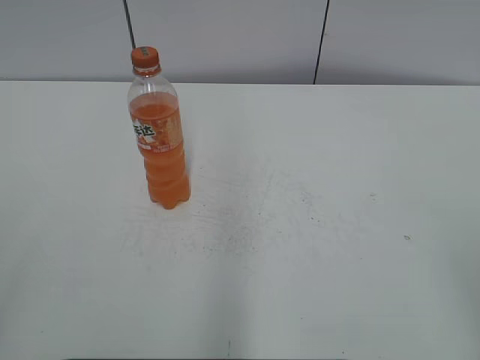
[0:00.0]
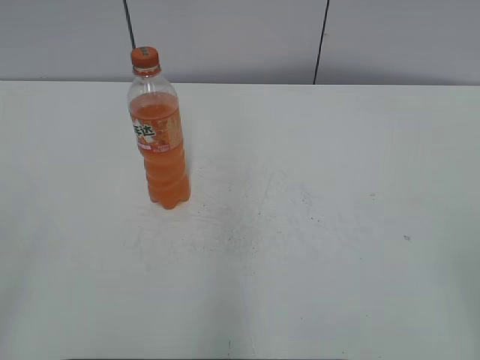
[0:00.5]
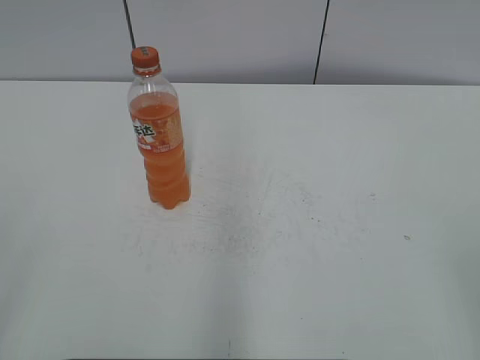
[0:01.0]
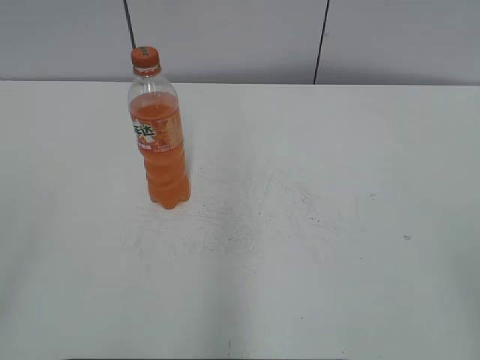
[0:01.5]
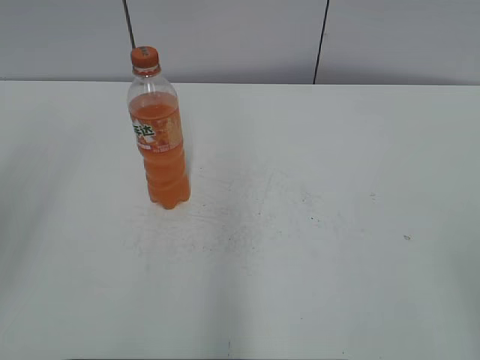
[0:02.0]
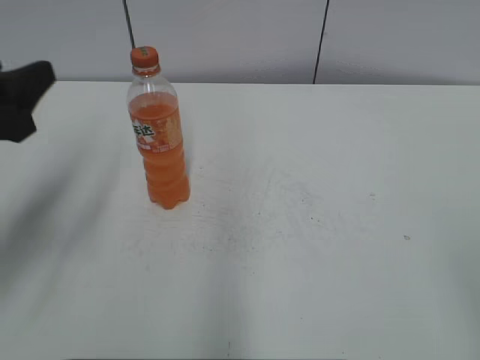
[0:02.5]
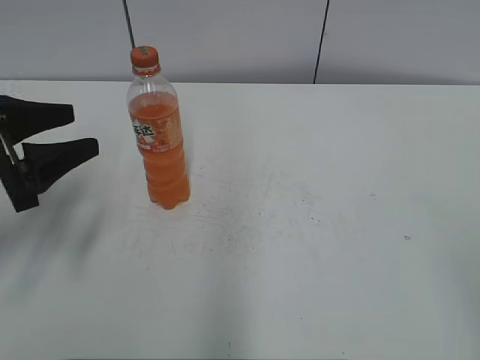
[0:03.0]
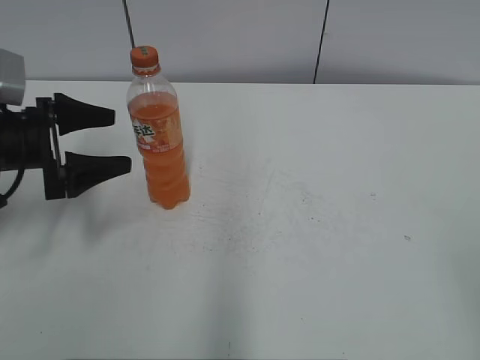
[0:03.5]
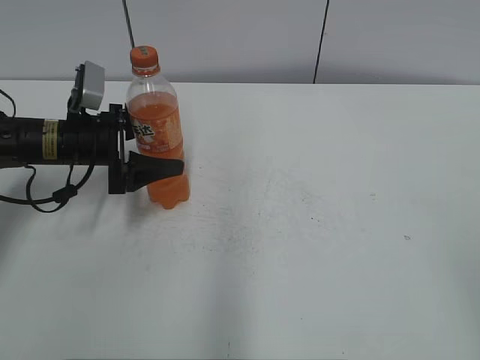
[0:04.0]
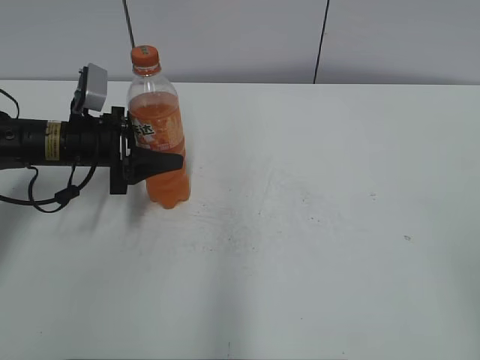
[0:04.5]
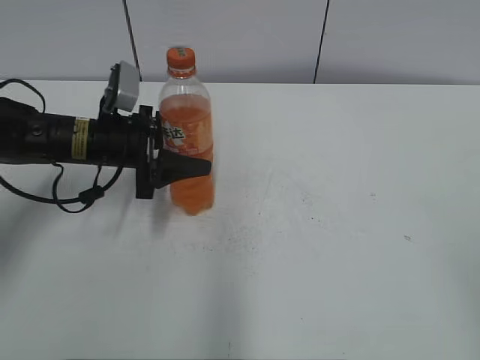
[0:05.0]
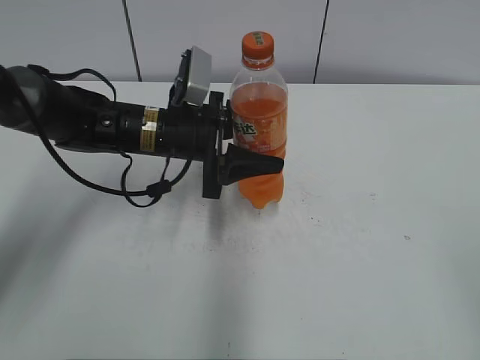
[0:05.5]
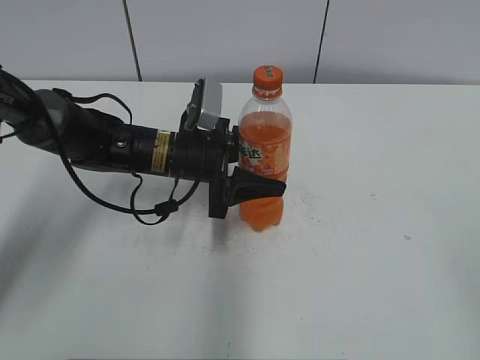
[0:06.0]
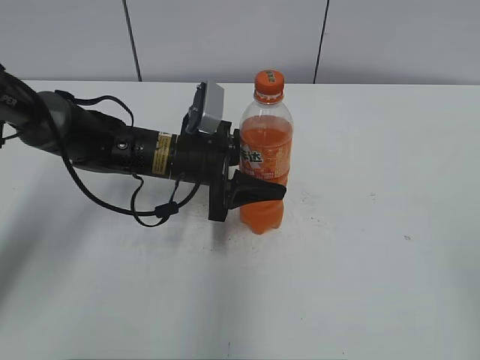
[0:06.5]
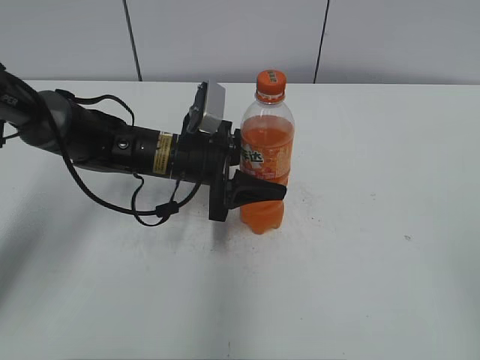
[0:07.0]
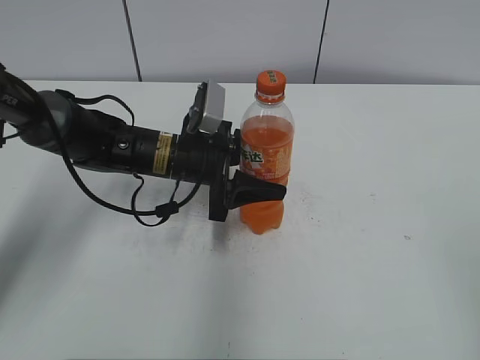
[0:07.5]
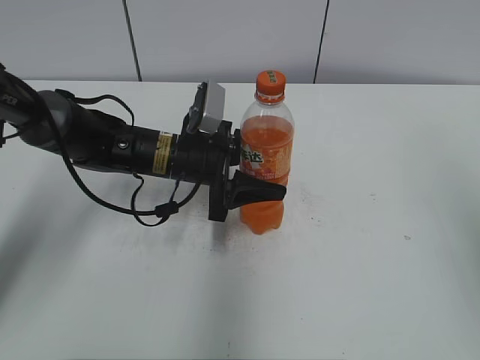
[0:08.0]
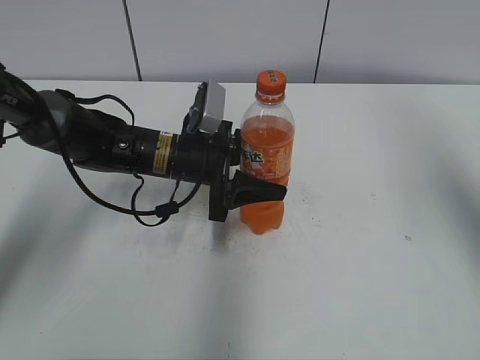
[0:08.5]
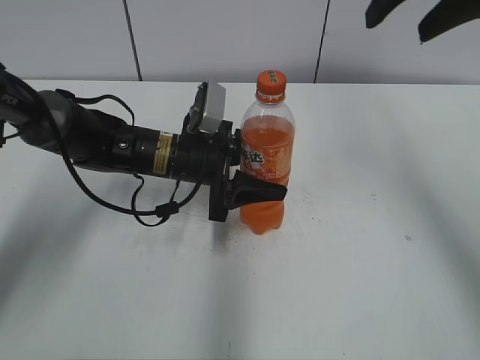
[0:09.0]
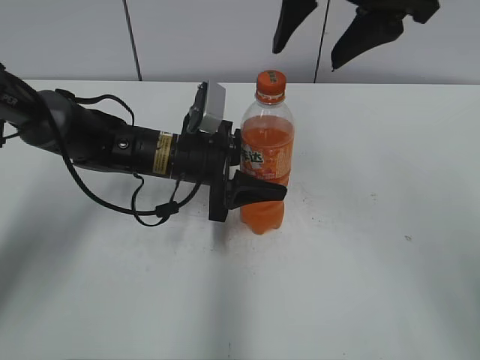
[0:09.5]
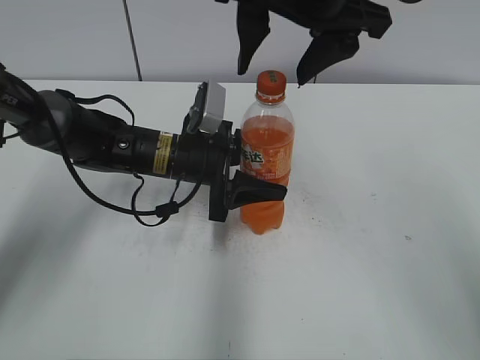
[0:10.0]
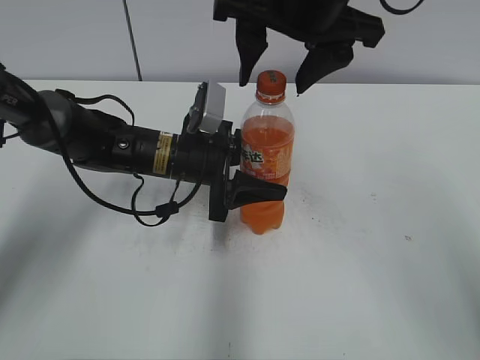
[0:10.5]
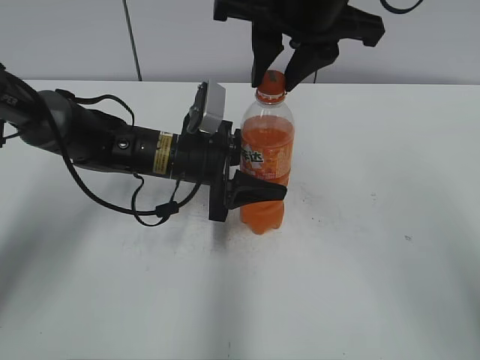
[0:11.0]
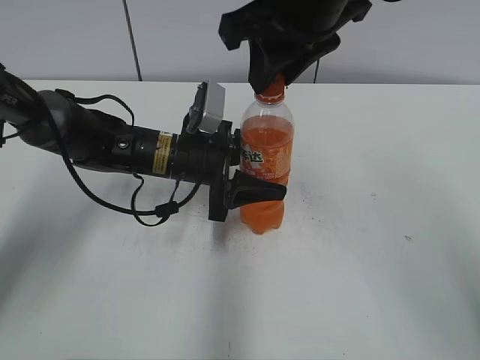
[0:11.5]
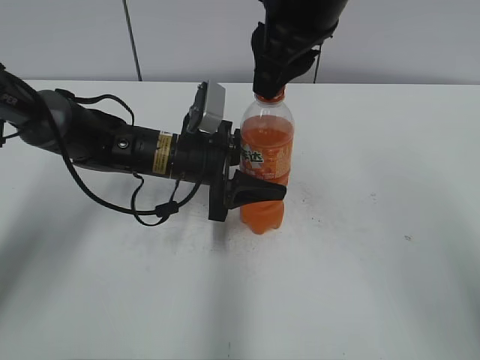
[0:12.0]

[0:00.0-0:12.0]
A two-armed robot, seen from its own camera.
Step, 0:00.0 to 0:04.5: Grab the Mirinda with the left hand.
Step, 0:05.0 to 0:06.5: Move the Mirinda from left to right.
0:02.0 to 0:04.0: The left gripper shifts roughly 35 cm forward and downward, and opens up.
0:04.0 to 0:06.0: The left gripper is displaced to the right by about 15 cm, and closes up.
0:06.0 to 0:08.0: The right gripper moves upward and forward, roughly 10 cm.
0:08.0 to 0:10.0: The right gripper heads to the left and forward, covering roughly 30 cm.
0:10.0 to 0:12.0: The right gripper closes.

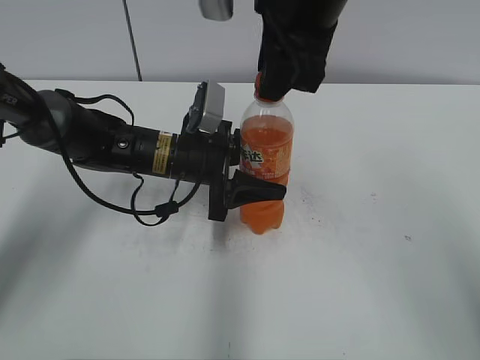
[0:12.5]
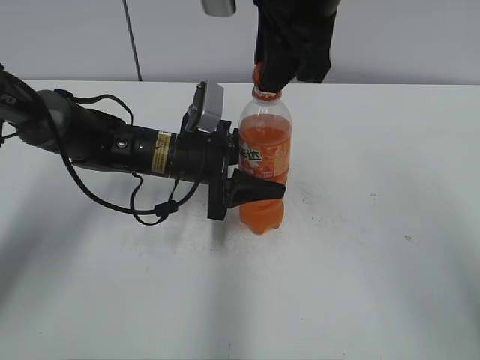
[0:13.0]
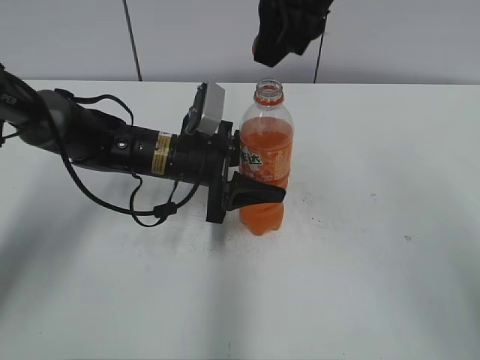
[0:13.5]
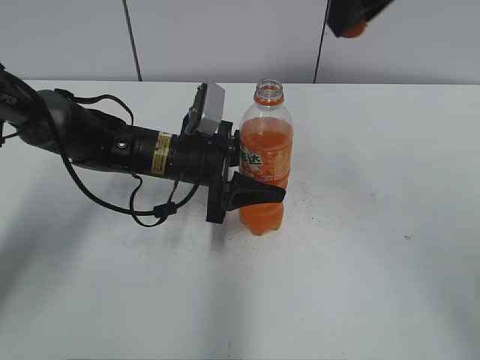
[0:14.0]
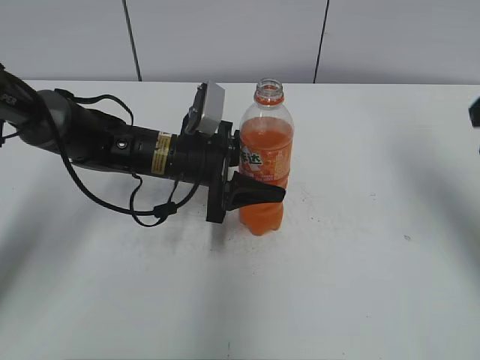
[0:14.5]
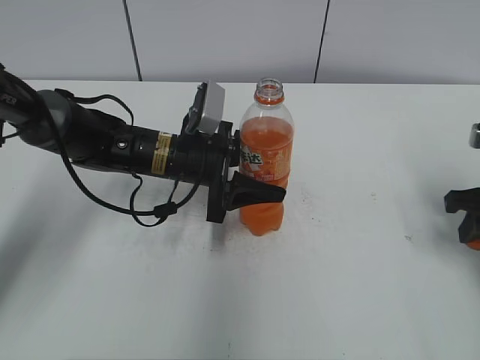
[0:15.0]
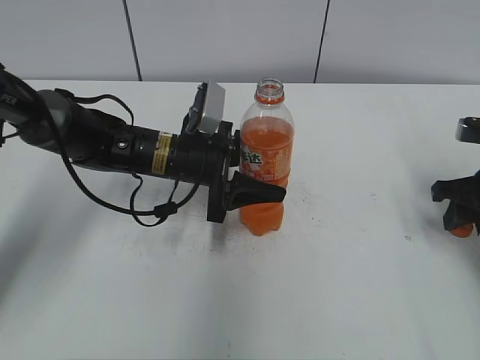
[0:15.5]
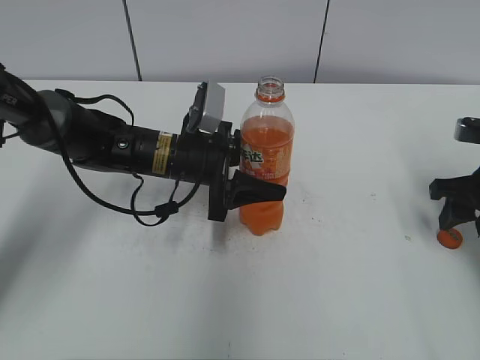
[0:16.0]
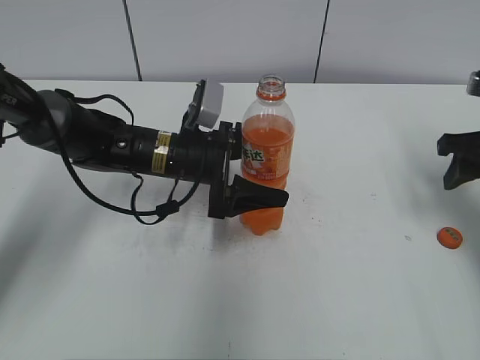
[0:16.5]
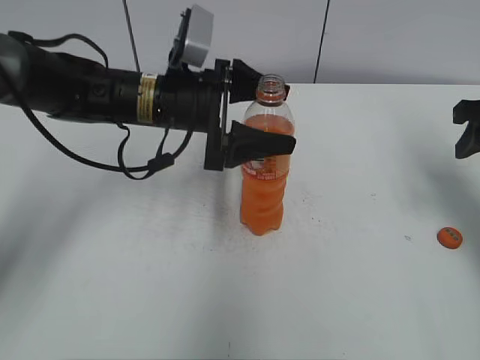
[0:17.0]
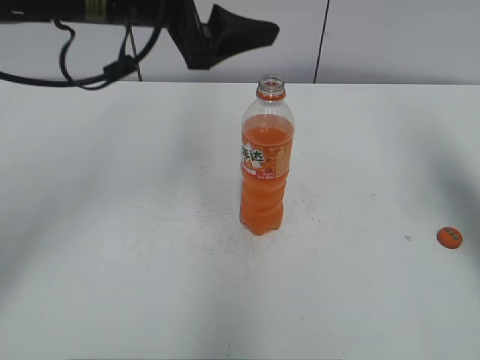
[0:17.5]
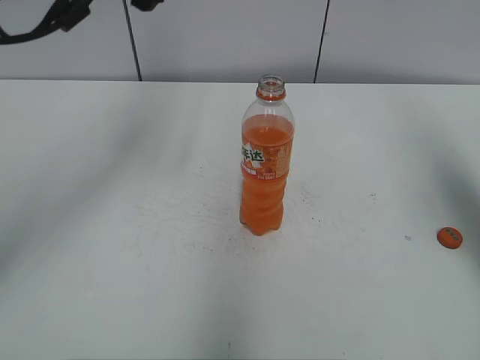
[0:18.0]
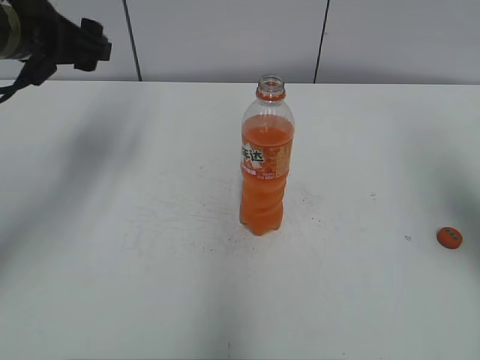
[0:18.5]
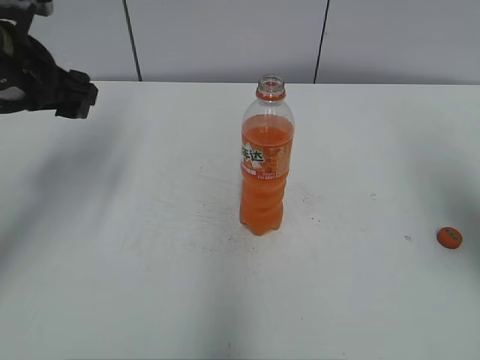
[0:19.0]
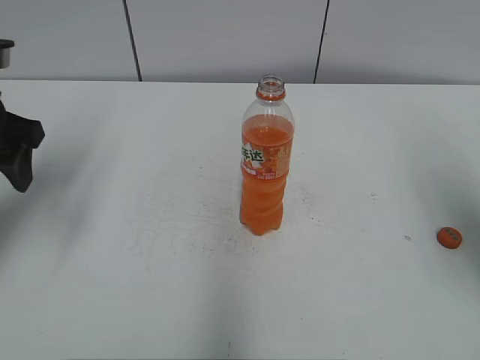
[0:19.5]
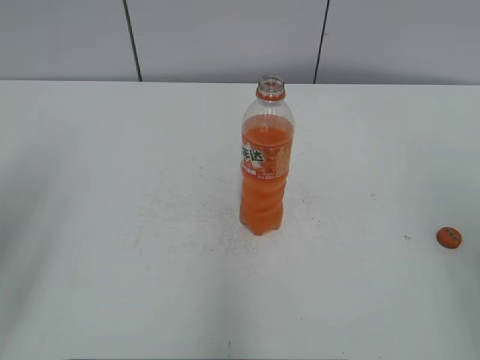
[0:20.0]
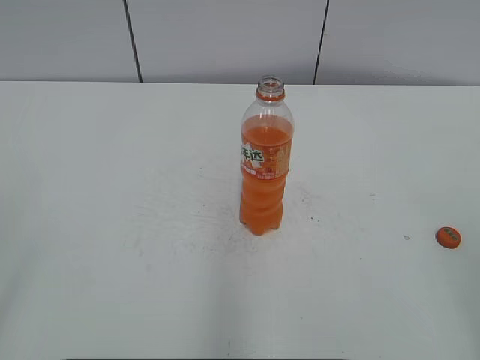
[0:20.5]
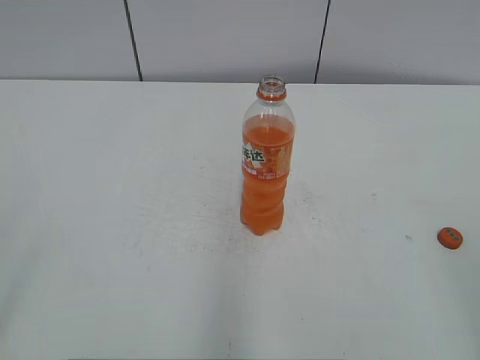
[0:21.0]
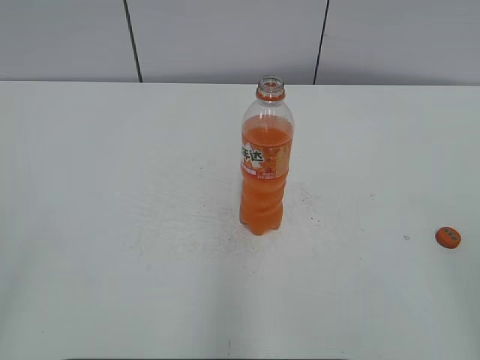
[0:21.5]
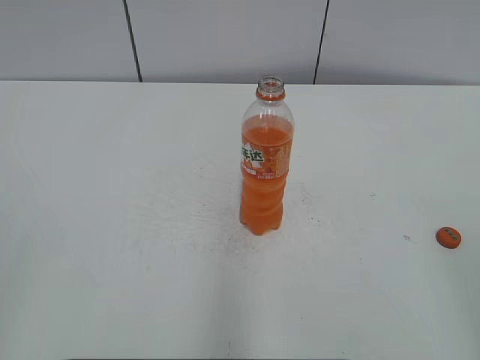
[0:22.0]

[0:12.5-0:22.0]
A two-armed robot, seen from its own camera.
Step, 0:13.0 to 0:15.5: Place the bottle cap on the right.
0:12.5 to 0:14.5: The right gripper travels to the right by roughly 20 cm.
0:14.5 to 0:16.5: The left gripper opens its fingers; the right gripper heads downward, covering roughly 10 cm, and opens.
0:16.5 to 0:18.0: The right gripper travels upward and backward by approximately 15 cm; the left gripper is displaced upward by some 25 cm.
0:18.0 to 0:20.0: The left gripper is displaced backward and to the left by about 20 cm. The right gripper is displaced backward by approximately 15 cm.
0:20.0 to 0:22.0: The left gripper is displaced backward by approximately 20 cm, and closes up.

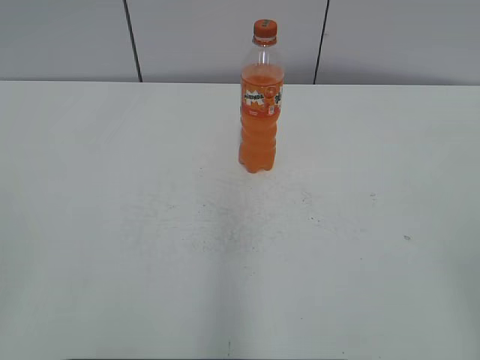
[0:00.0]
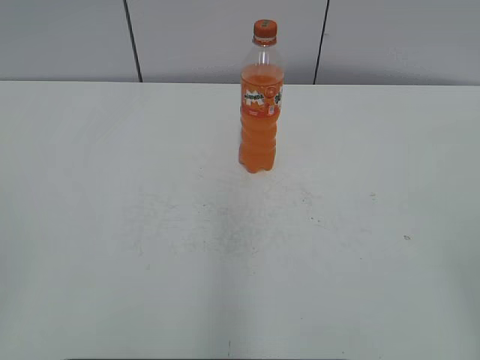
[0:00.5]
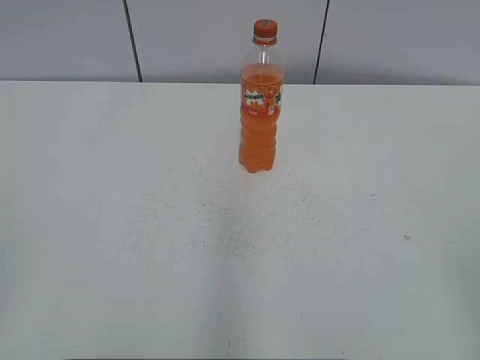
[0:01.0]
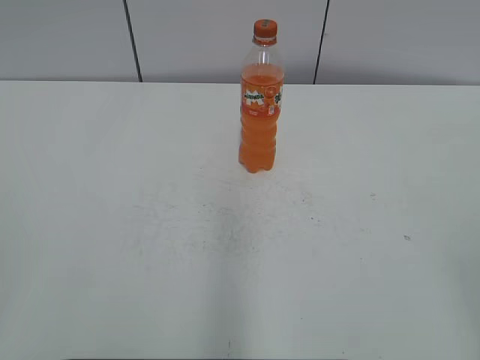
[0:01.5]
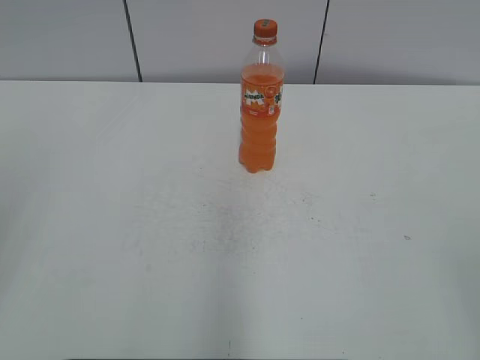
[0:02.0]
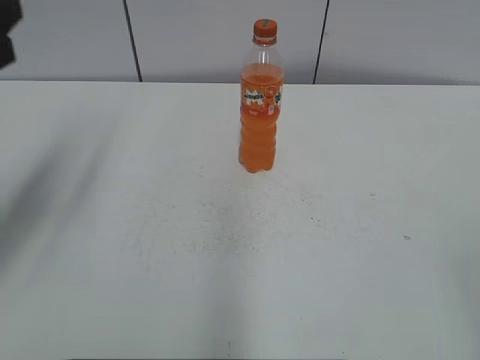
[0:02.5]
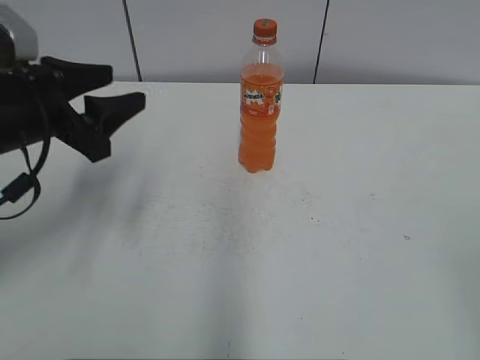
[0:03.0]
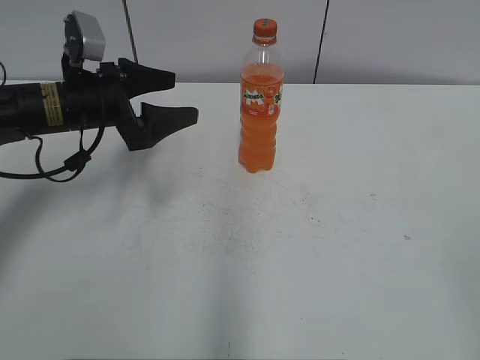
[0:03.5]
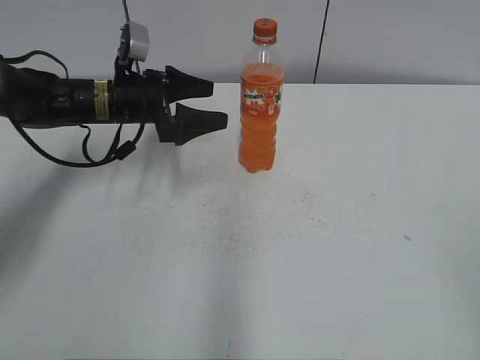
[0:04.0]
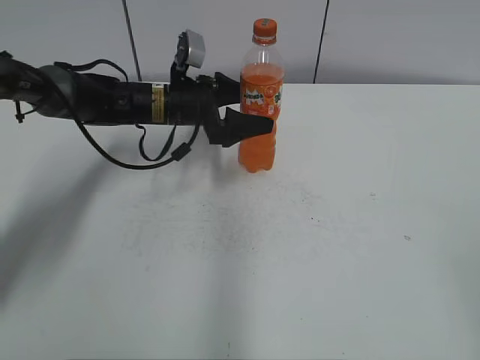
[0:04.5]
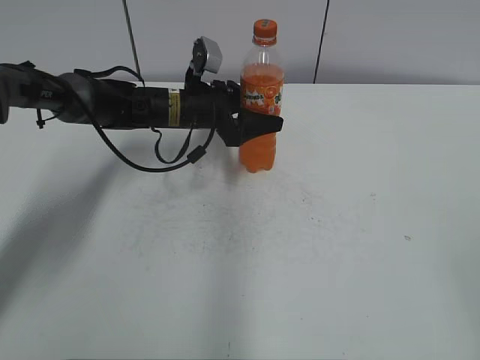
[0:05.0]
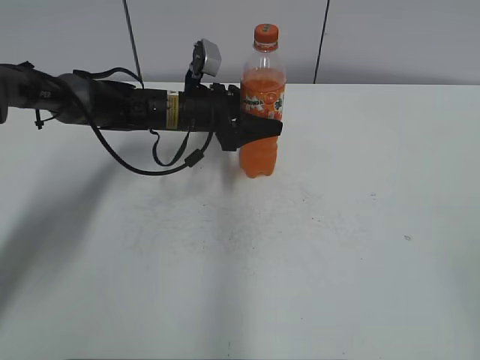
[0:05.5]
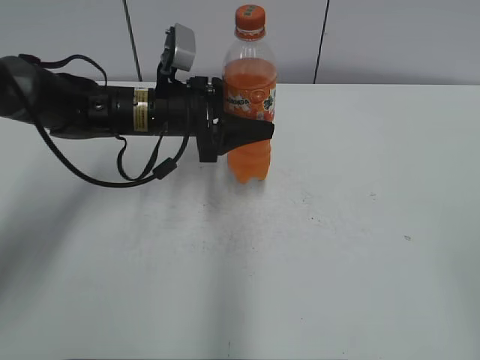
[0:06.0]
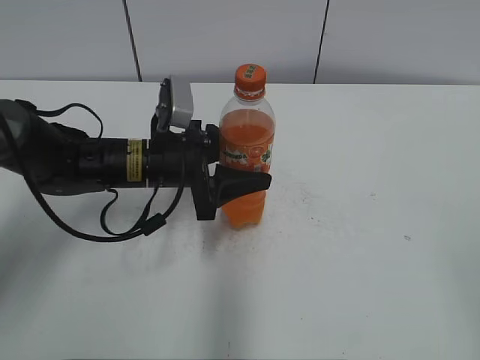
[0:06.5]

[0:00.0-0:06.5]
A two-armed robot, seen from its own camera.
Step, 0:00.0 to 0:05.0: Grab the Mirinda with the left hand.
0:02.0 to 0:04.5: The left gripper travels forward, downward and to the right by some 50 cm, and opens its fingers.
0:04.5 to 0:06.5: The left gripper is displaced backward by approximately 10 cm, and closes up.
